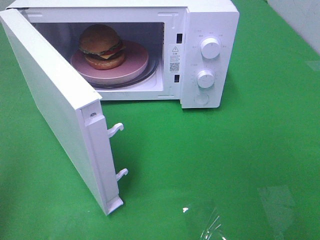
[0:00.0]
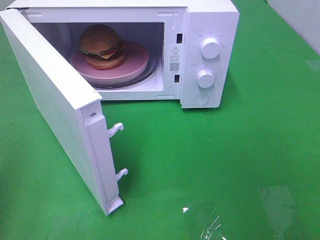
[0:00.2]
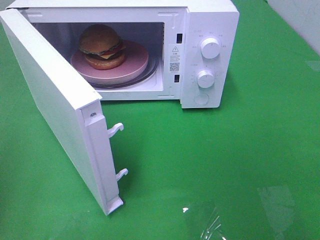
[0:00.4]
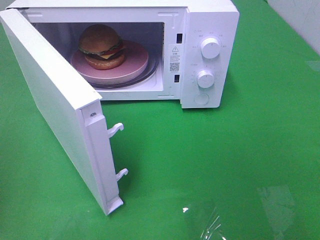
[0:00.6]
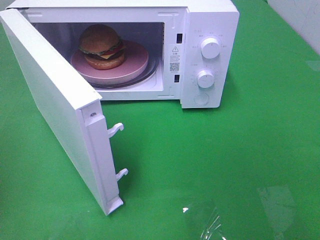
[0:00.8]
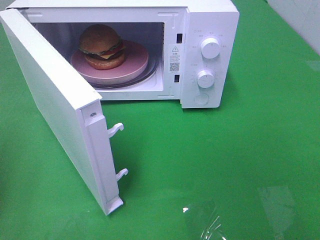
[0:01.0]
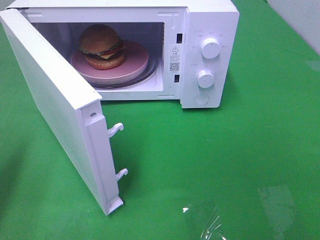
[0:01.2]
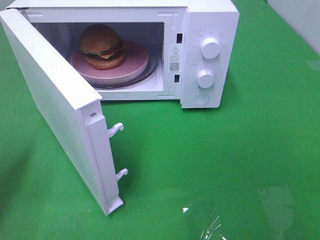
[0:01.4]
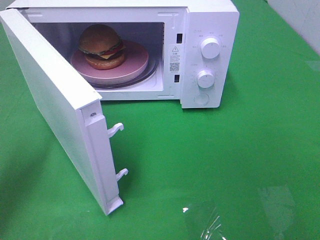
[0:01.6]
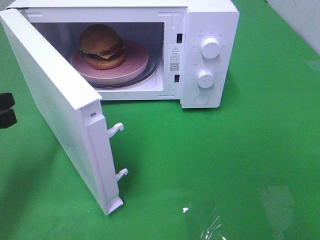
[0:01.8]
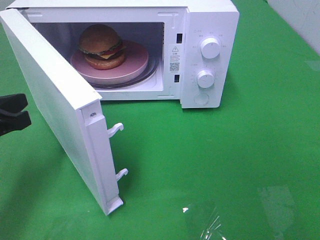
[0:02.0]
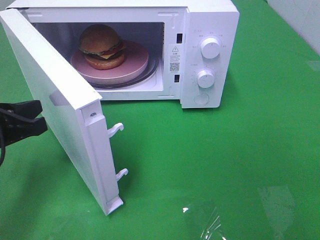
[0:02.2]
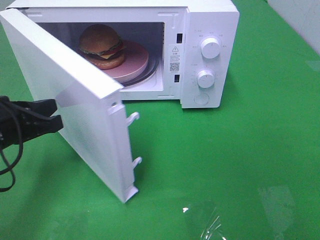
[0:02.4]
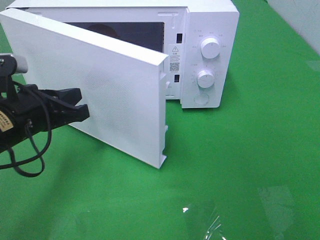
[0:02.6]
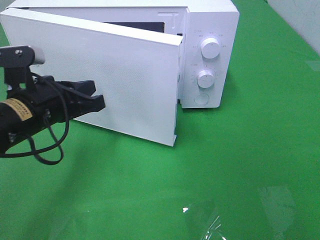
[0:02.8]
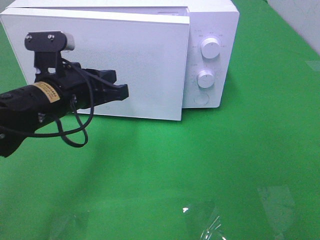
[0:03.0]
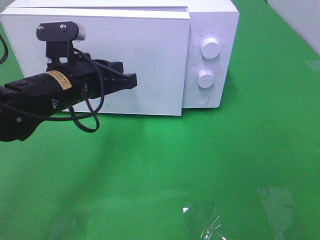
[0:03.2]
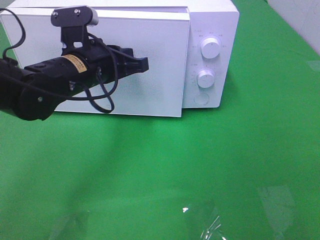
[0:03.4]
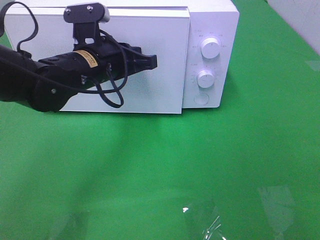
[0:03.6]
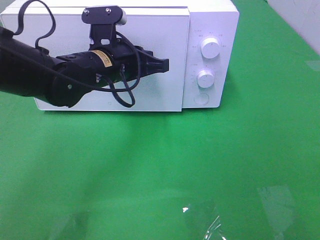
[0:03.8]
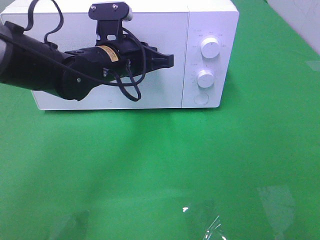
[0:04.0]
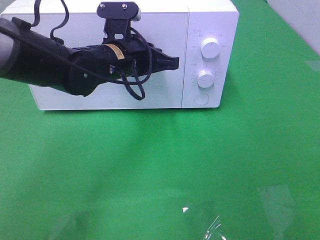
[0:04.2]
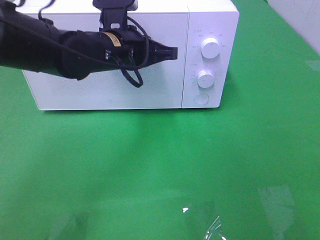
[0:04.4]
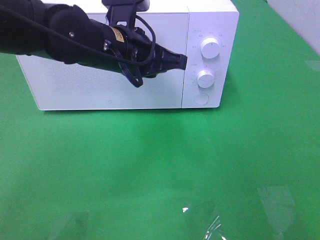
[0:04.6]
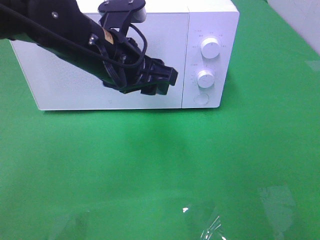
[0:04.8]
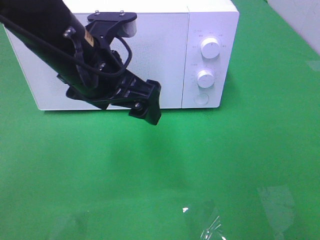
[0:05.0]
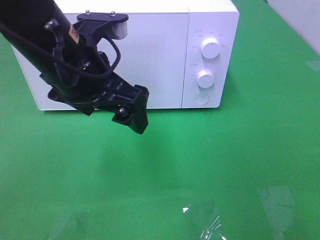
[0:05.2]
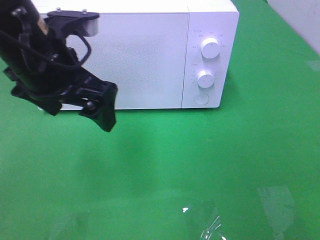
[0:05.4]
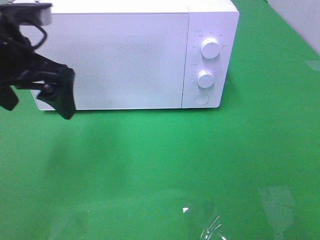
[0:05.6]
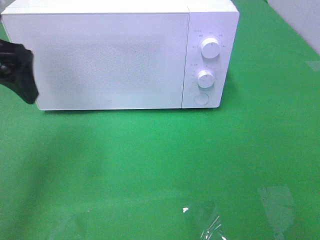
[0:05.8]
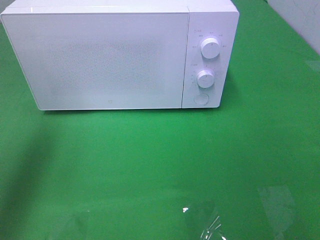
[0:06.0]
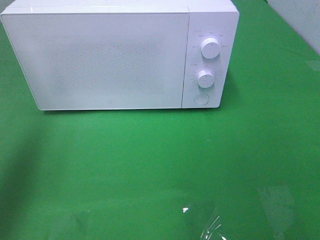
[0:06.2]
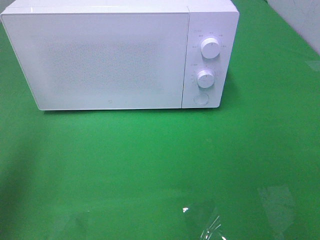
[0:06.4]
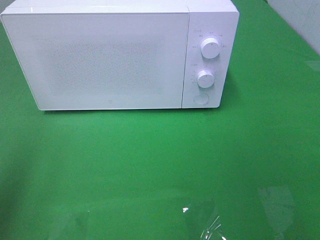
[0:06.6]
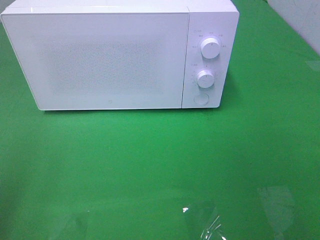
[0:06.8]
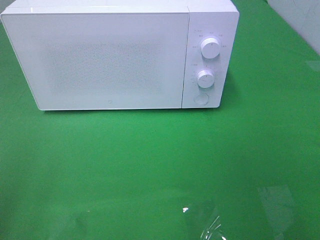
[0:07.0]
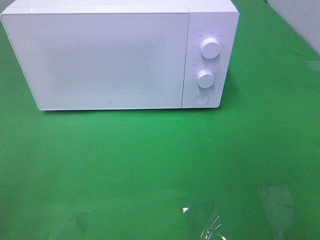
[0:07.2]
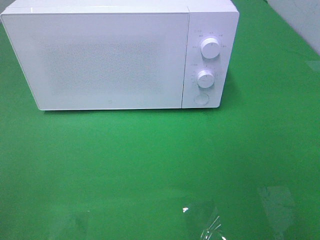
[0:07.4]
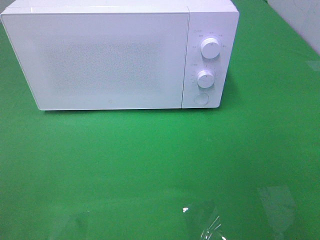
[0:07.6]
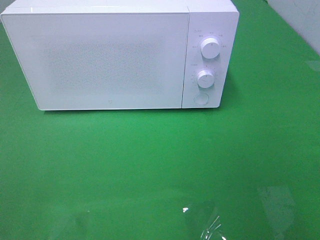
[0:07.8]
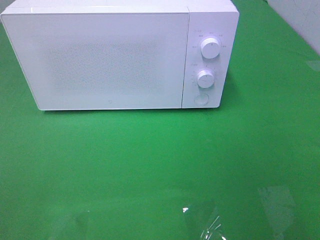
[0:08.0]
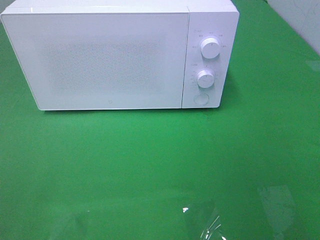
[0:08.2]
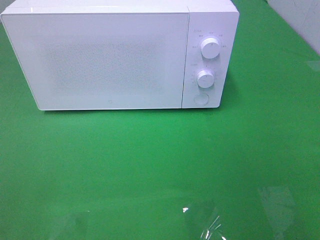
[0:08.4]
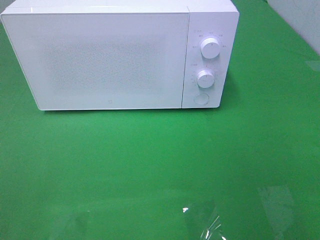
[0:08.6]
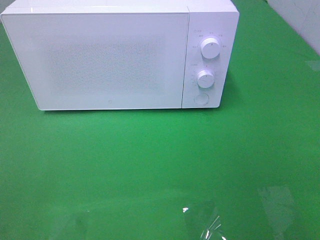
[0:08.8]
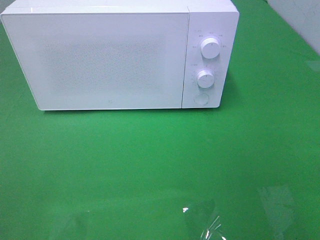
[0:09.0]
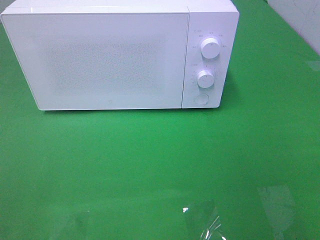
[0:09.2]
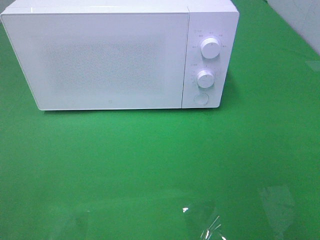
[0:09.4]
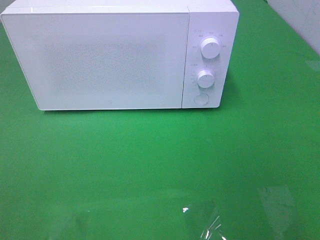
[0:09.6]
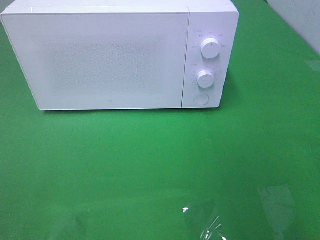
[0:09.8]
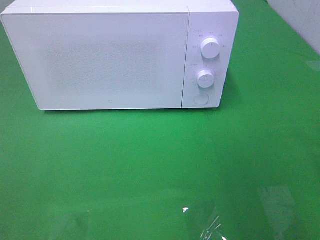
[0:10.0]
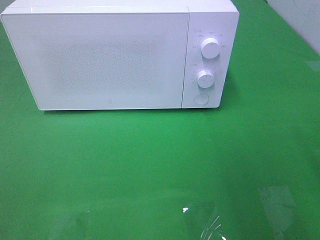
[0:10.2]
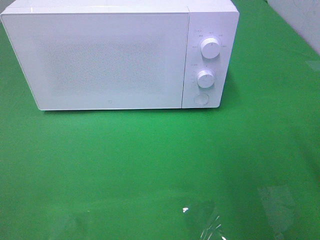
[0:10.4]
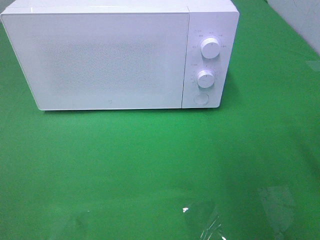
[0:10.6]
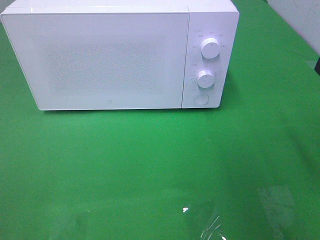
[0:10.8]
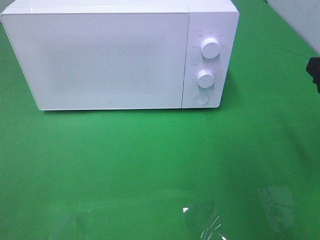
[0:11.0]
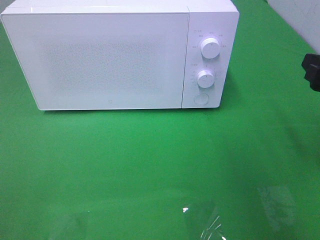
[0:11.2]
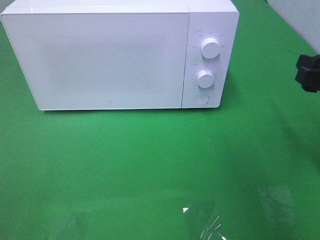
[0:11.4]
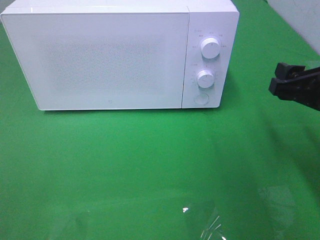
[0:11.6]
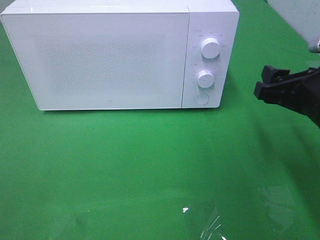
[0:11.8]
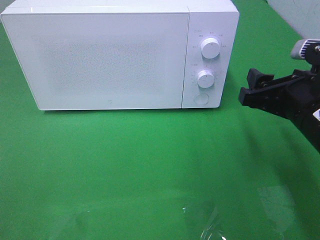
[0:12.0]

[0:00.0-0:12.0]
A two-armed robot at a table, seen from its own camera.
Task of the whole recording: Heat the burger.
Step, 0:00.0 to 0:04.6: Left hand: close the microwave door.
0:00.0 to 0:01.6: The left gripper goes about 15 cm downward and forward.
0:01.6 to 0:03.0: The left gripper is displaced to the right and forward by approximately 15 cm.
0:03.0 to 0:04.4: The left gripper moves to the right and forward, roughly 10 cm.
0:04.4 to 0:06.0: The left gripper moves to the left, upward and backward, some 30 cm, and opens its fingers.
0:06.0 to 0:07.6: The left gripper goes about 25 cm backward.
0:10.4 to 0:12.0: The right gripper heads to the left, downward and forward, covering some 15 cm.

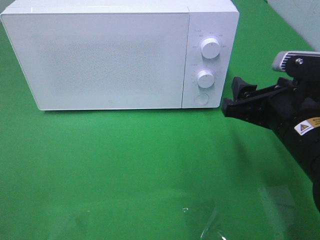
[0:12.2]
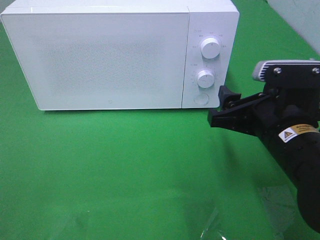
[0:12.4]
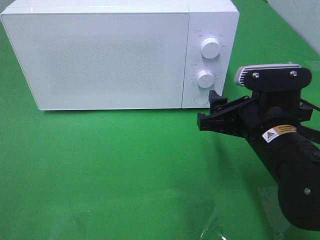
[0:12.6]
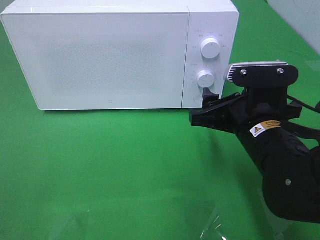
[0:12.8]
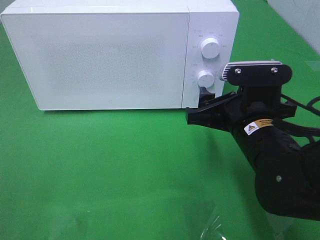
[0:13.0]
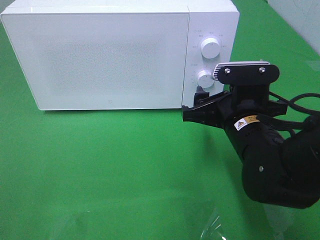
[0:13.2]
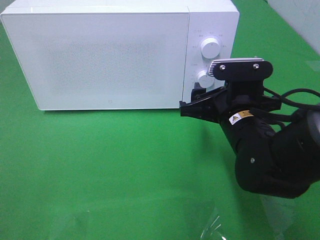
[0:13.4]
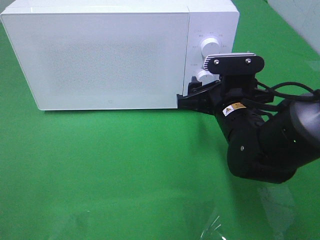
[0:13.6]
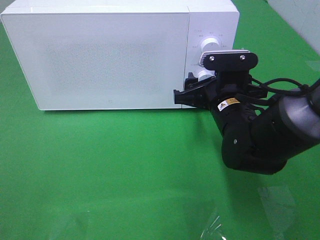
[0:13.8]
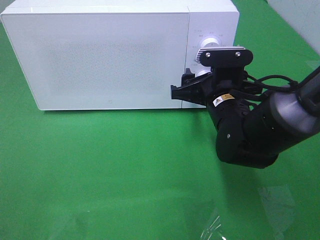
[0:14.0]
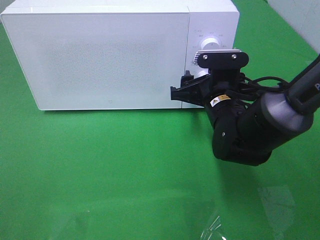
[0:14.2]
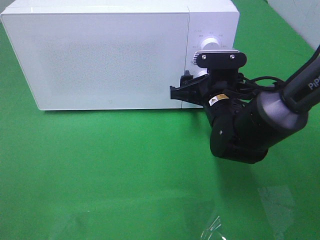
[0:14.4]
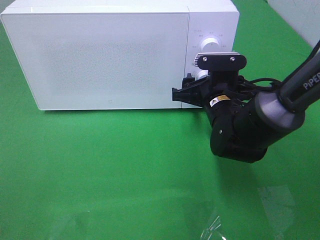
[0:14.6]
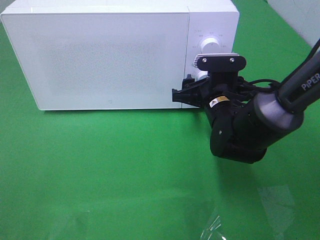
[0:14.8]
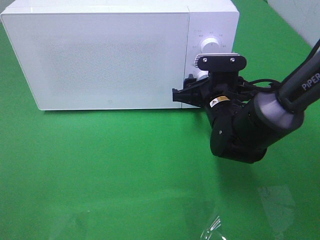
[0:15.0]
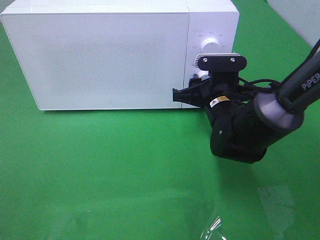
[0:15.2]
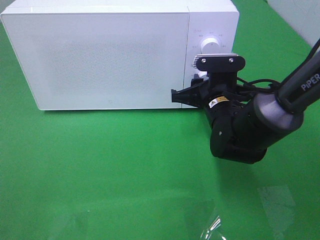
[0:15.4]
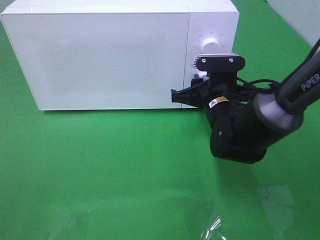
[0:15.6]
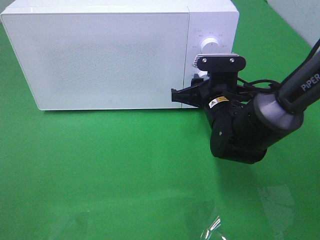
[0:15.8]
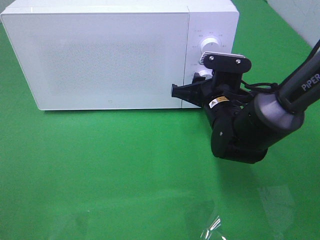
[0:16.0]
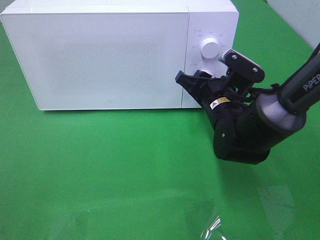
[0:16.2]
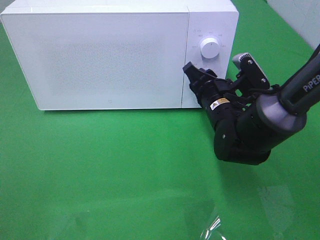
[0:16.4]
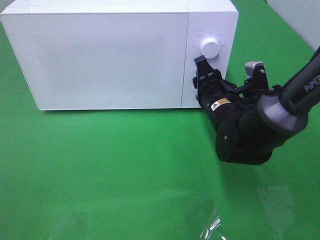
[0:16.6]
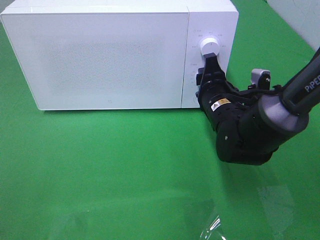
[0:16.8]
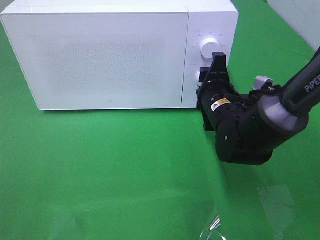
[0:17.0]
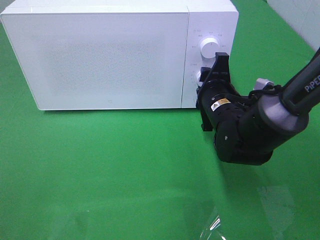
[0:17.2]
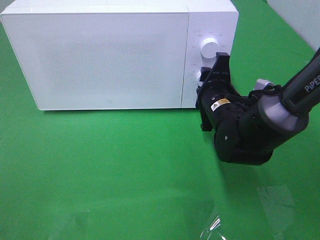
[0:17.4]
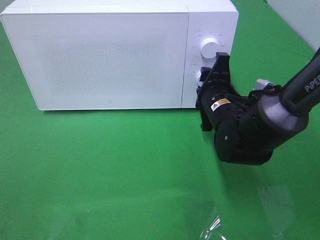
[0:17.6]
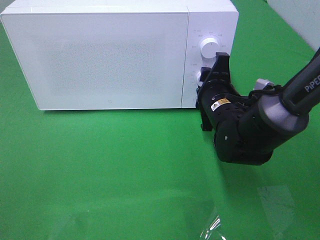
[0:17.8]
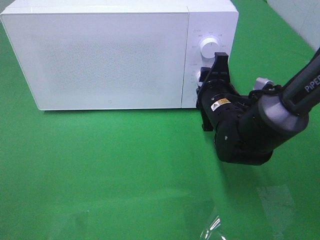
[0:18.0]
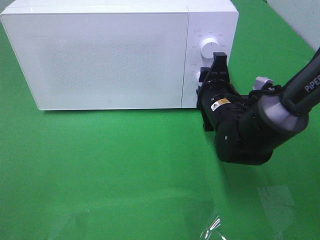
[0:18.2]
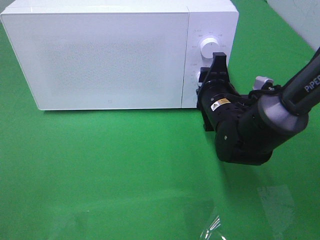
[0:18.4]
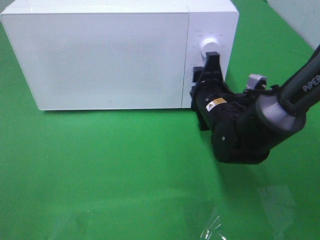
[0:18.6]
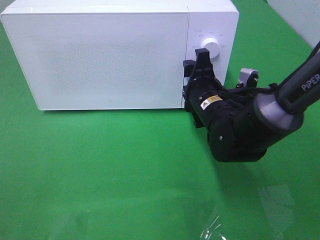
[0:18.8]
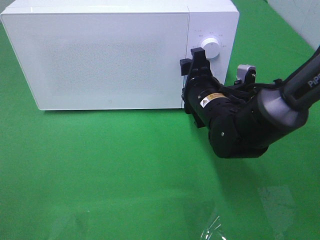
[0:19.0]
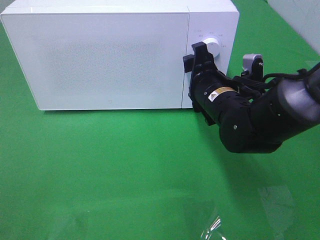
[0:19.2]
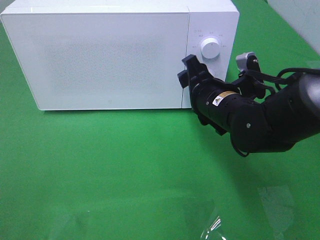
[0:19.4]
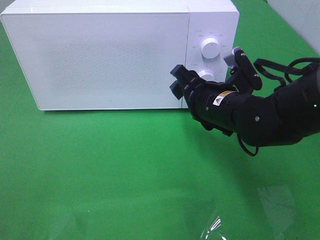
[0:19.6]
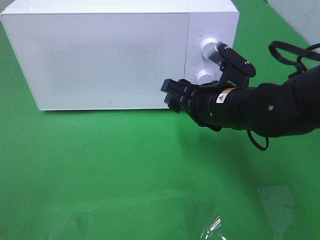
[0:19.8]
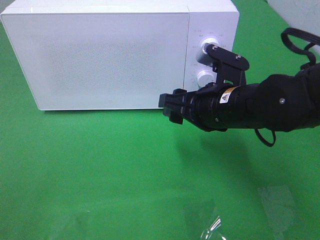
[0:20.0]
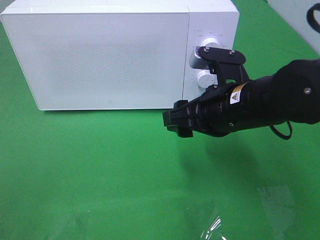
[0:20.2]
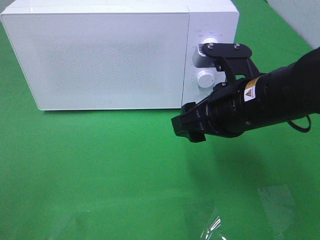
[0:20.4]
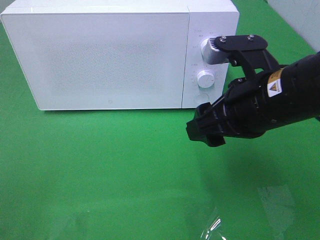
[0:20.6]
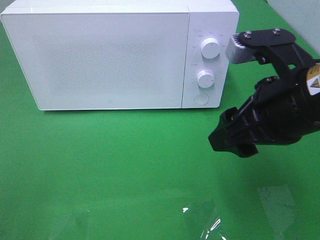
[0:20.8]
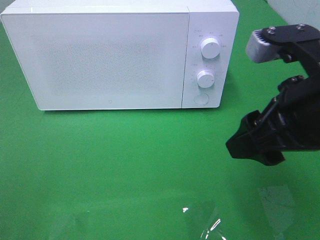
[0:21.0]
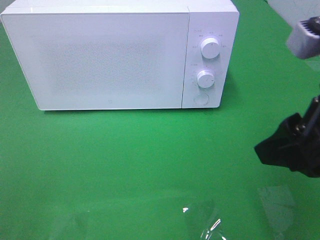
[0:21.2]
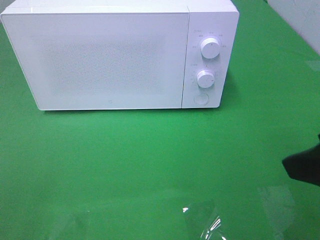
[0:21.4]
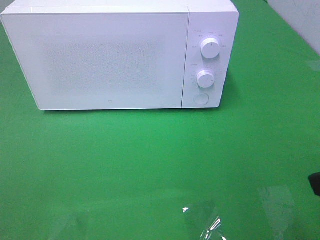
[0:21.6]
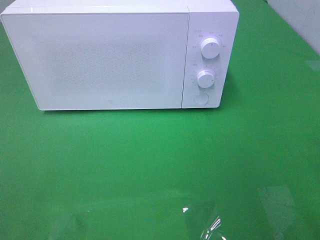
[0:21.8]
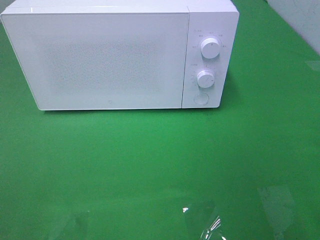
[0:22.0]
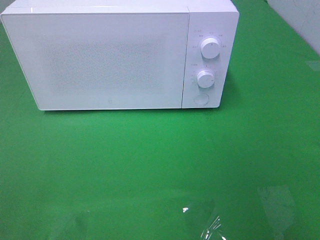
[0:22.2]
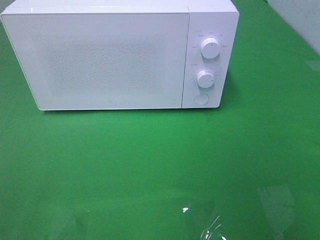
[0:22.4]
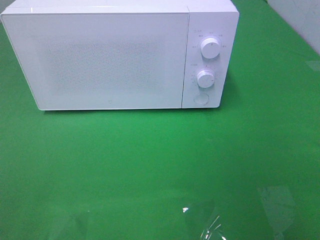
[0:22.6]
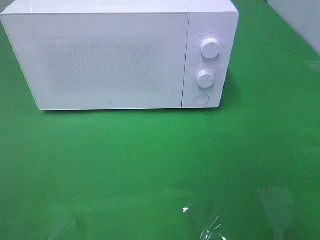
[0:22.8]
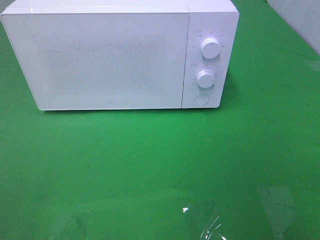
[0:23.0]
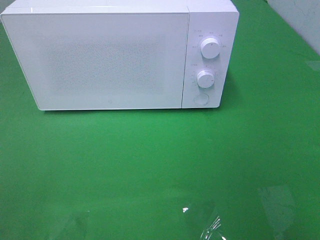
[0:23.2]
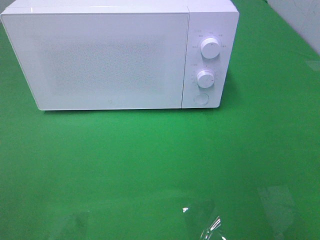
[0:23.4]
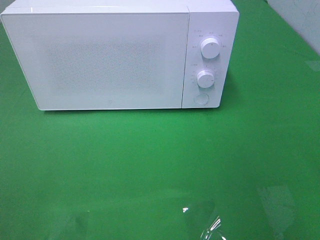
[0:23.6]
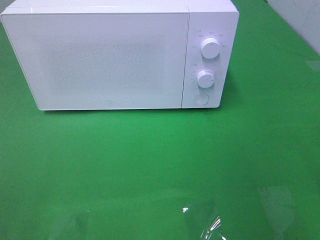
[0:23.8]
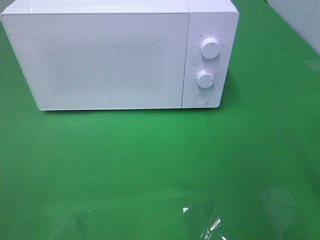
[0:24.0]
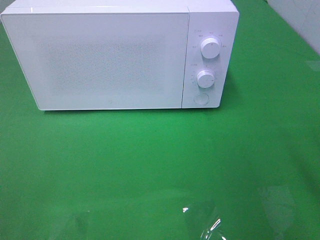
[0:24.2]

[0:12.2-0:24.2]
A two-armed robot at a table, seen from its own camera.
Task of the whole recording: Heat the burger.
Step, 0:12.2 to 0:19.2: Right hand: twist timer button.
0:12.2 to 0:13.8: The right gripper is displaced forward and to the left by some 10 cm.
0:13.8 to 0:15.2: The grippers make only small movements.
0:18.2 to 0:19.8: The right gripper ends up approximately 5 cm from where it was.
0:19.8 to 0:21.2: The right gripper shifts about 20 cm backward, upward and to the right.
0:21.2 to 0:22.6: The right gripper heads backward and to the right, covering roughly 15 cm.
